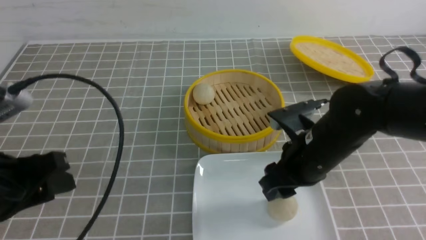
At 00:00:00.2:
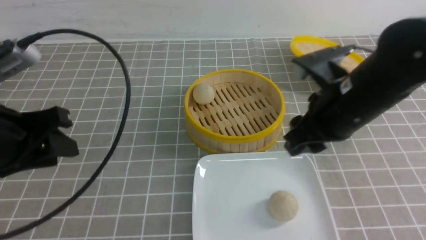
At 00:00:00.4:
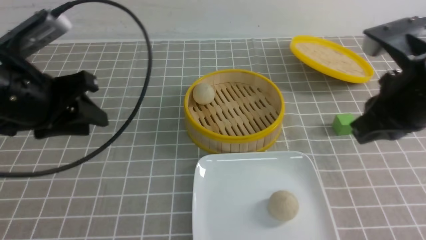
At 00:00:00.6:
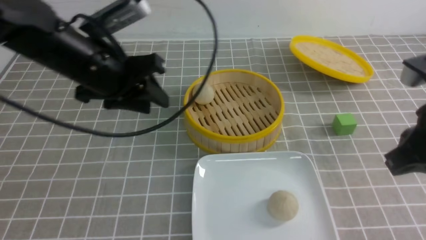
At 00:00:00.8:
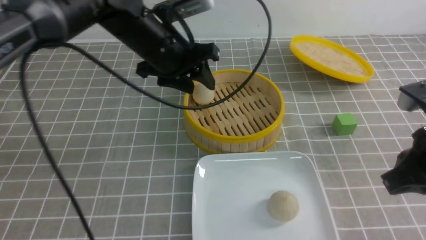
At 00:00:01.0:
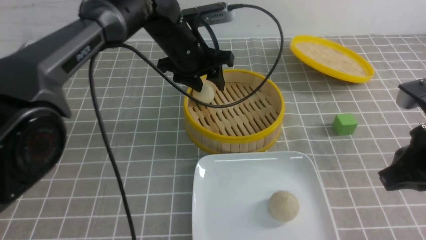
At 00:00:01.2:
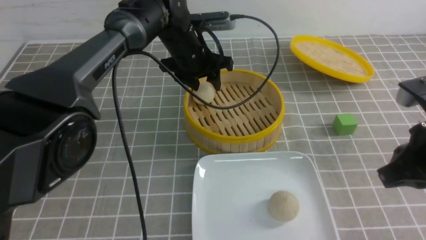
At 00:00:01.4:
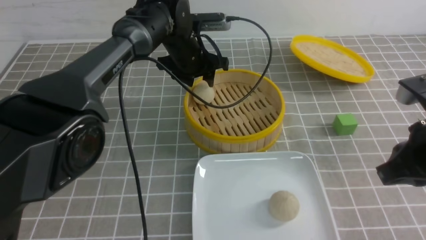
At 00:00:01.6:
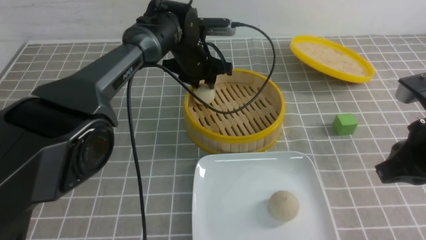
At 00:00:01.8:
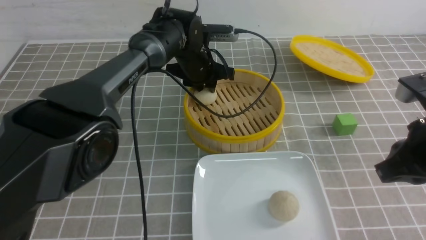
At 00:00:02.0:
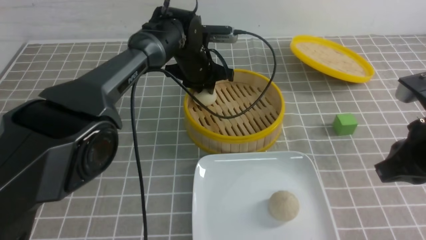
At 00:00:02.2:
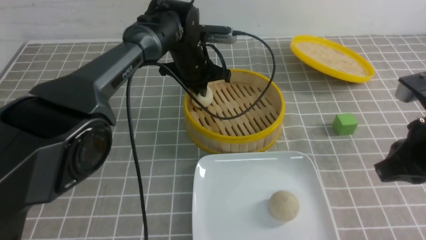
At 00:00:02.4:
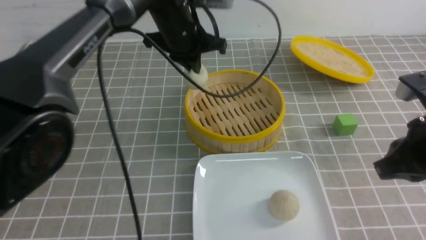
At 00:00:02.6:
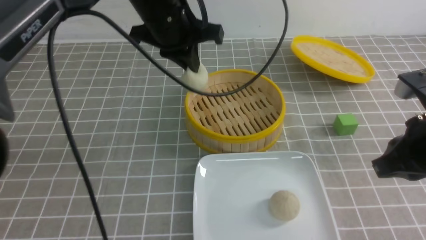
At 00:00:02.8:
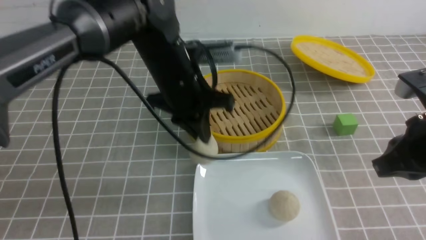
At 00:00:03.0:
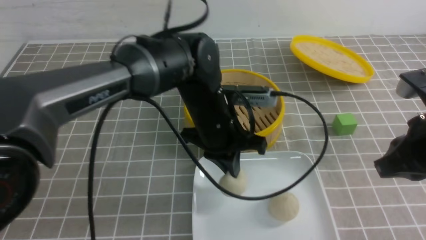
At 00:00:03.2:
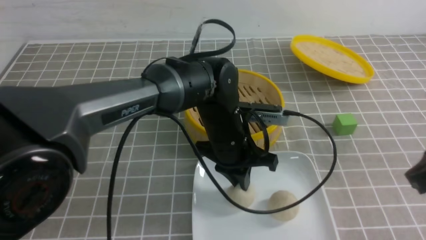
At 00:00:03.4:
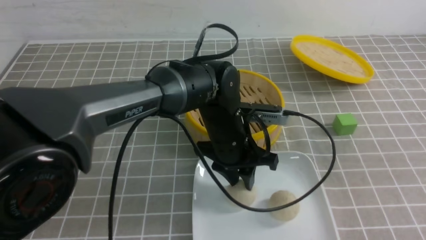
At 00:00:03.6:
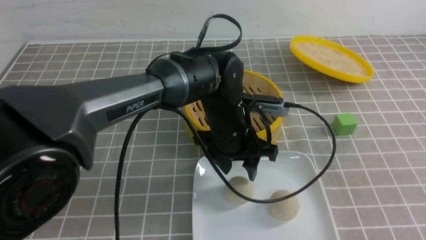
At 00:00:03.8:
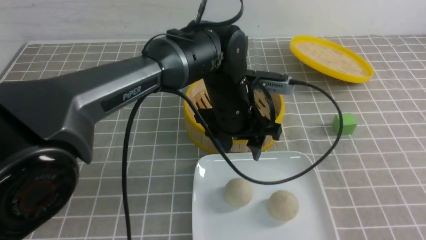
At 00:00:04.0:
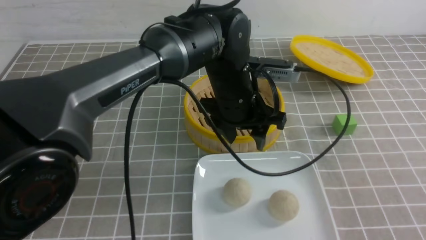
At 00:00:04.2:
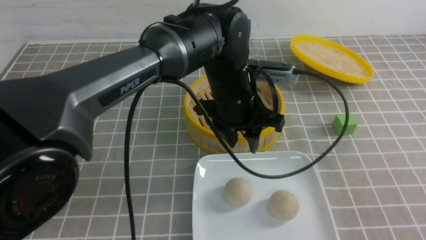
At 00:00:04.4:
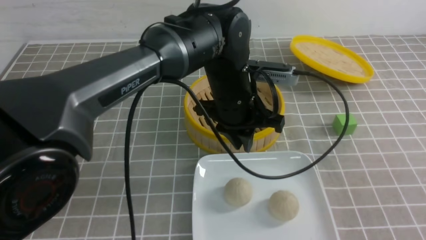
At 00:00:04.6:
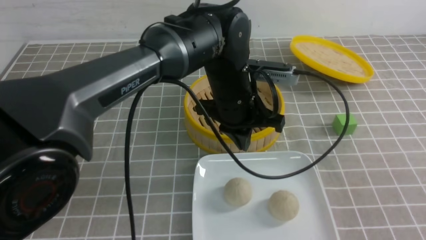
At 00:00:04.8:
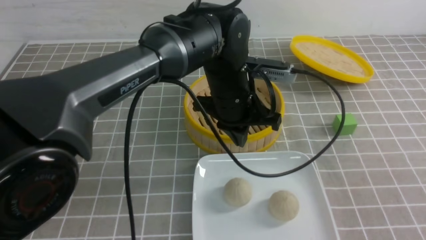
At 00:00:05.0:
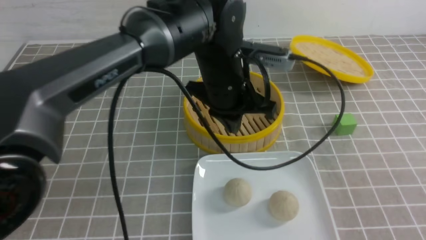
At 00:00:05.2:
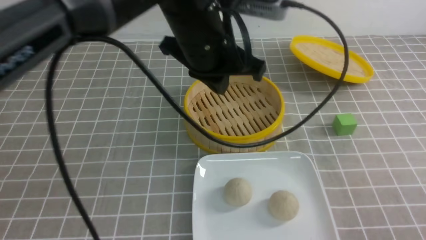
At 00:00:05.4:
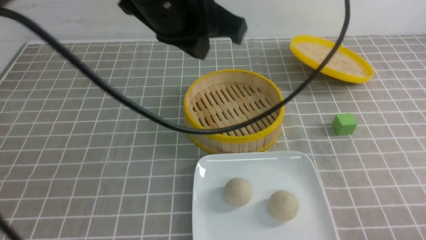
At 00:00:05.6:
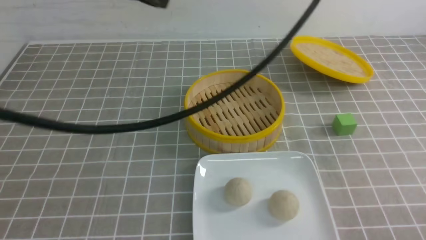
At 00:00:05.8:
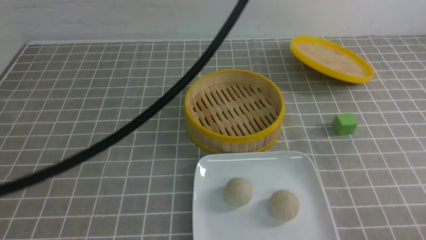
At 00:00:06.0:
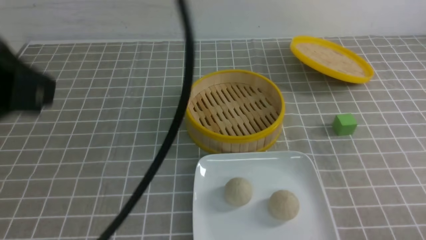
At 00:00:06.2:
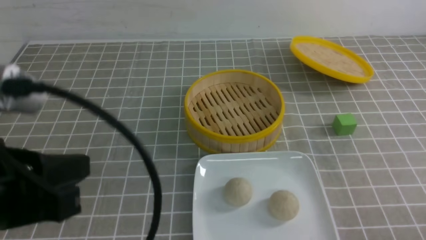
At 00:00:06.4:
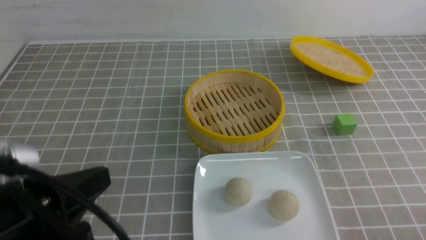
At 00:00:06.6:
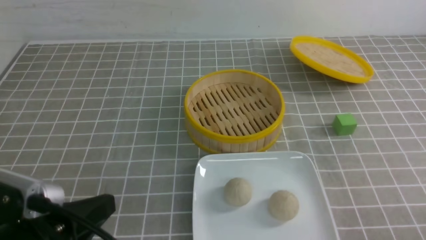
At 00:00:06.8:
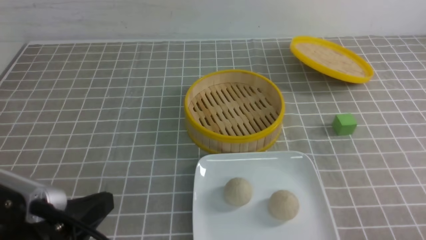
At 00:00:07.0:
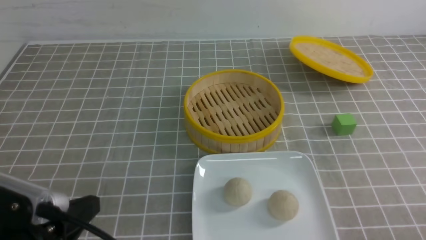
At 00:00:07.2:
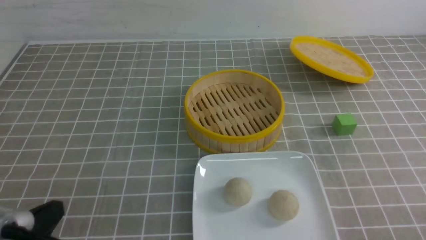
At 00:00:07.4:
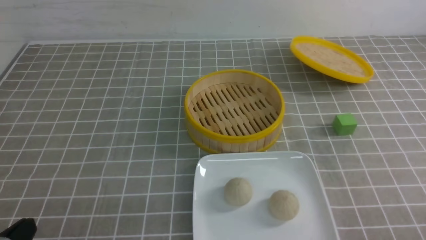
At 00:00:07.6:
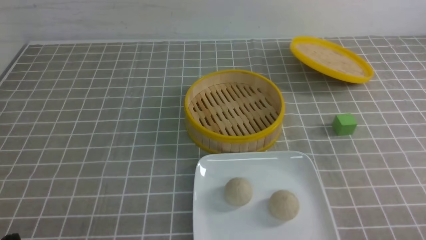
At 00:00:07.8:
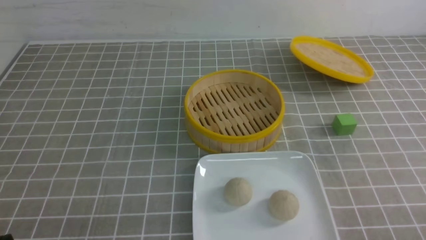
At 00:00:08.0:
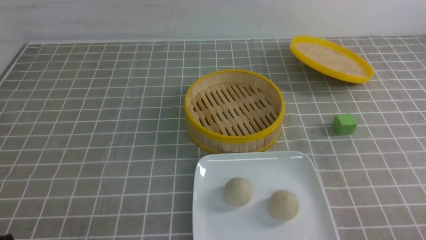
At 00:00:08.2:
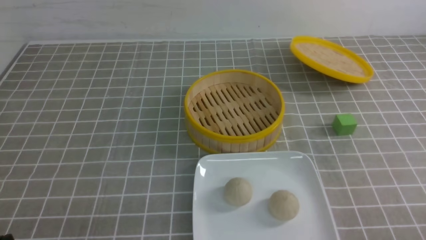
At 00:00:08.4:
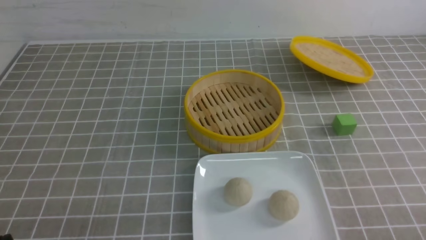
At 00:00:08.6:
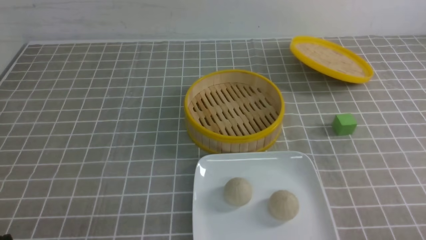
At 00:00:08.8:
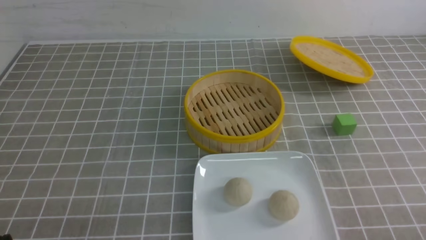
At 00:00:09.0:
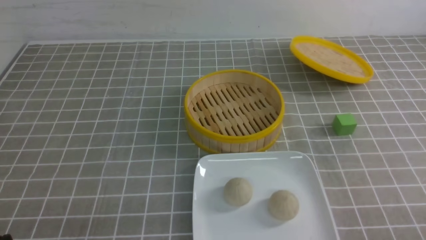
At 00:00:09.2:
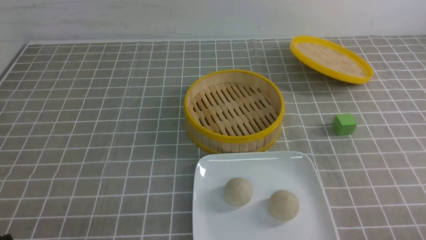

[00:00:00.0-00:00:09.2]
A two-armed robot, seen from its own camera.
Step, 00:00:00.0 to 00:00:02.2: use the left arm to grab the steamed stuffed bun that is closest to it.
Step, 00:00:02.4 to 00:00:03.4: use the left arm to put the steamed stuffed bun into the plate.
00:00:00.0 to 00:00:01.6: The right gripper shifts approximately 15 cm to the right, backward and upward, and closes up, while the left gripper heads forward and to the right, covering some 40 cm.
00:00:01.6 to 00:00:03.0: The left gripper shifts approximately 15 cm backward, and closes its fingers.
00:00:03.0 to 00:00:04.6: The right gripper heads backward, covering roughly 15 cm; the left gripper opens, then closes once more.
00:00:04.6 to 00:00:06.2: The left gripper goes some 35 cm backward, to the left and upward, while the right gripper travels downward by some 10 cm.
00:00:06.2 to 00:00:07.6: The left gripper moves downward, some 20 cm.
00:00:07.6 to 00:00:09.2: Both grippers stay put.
